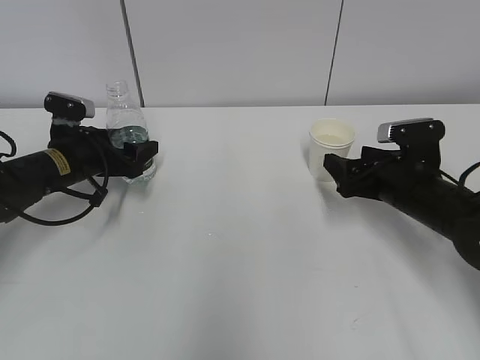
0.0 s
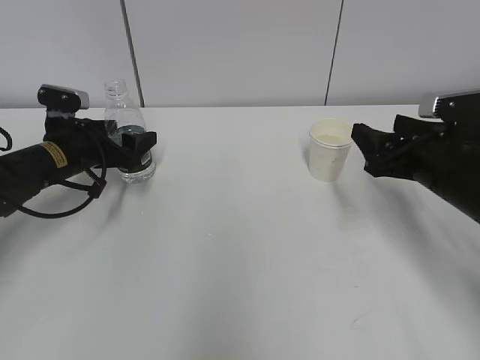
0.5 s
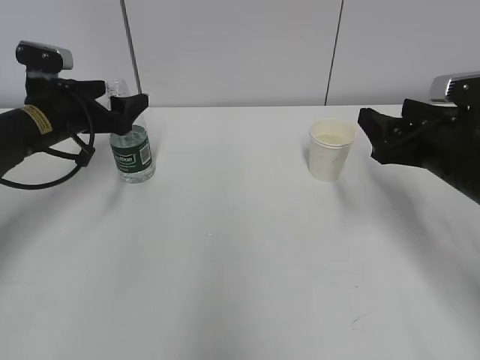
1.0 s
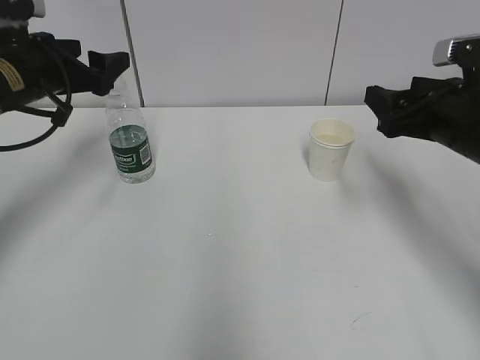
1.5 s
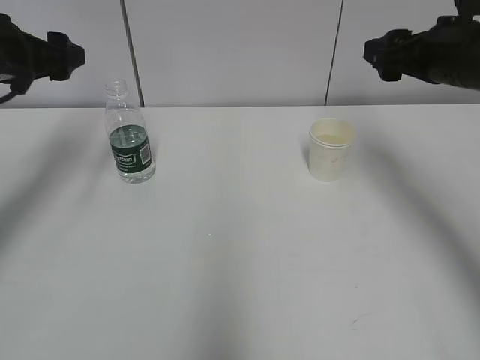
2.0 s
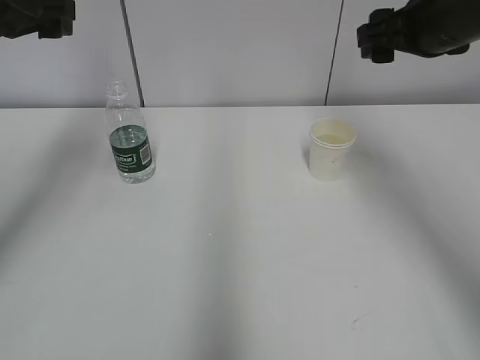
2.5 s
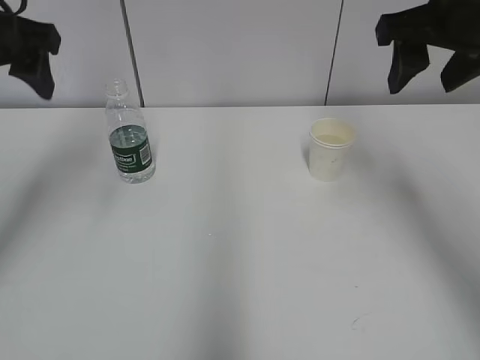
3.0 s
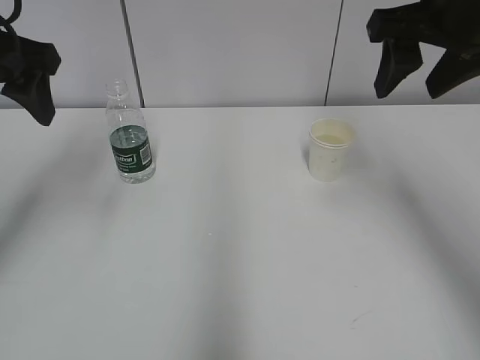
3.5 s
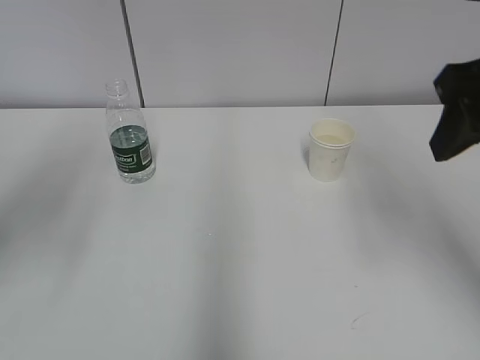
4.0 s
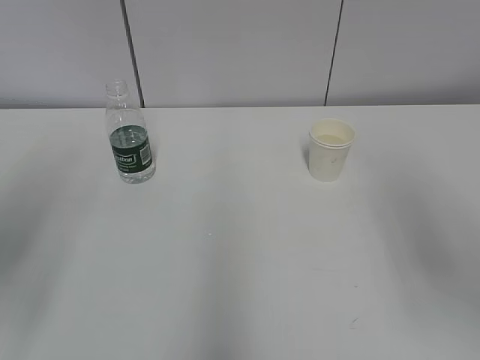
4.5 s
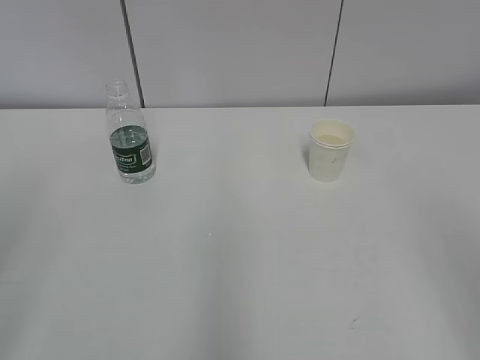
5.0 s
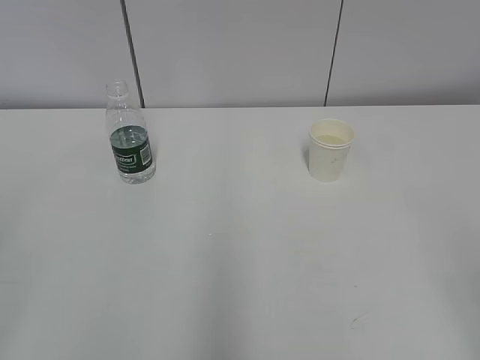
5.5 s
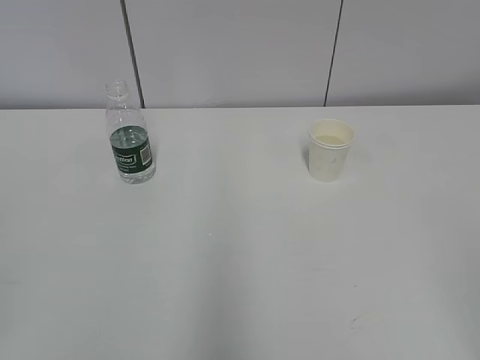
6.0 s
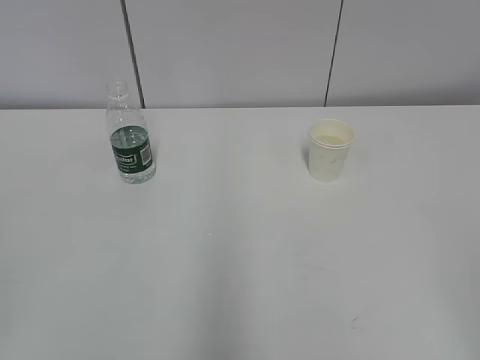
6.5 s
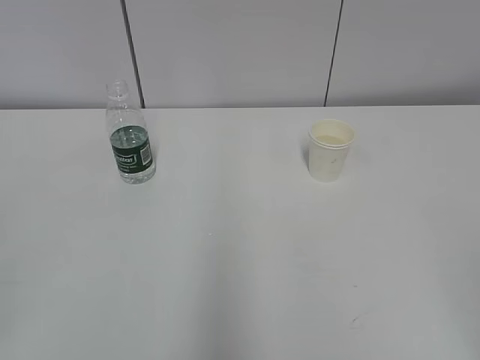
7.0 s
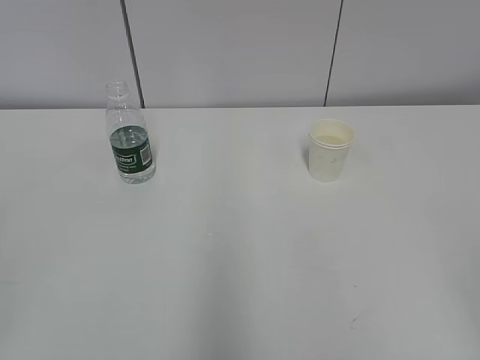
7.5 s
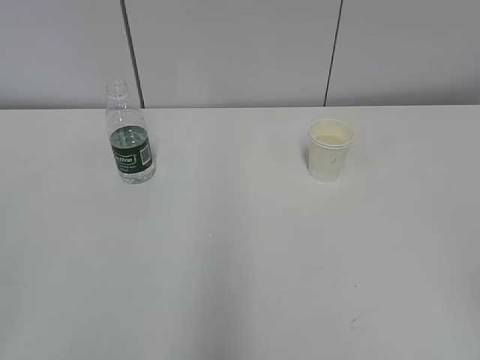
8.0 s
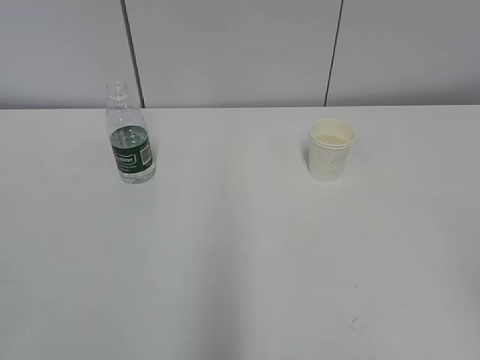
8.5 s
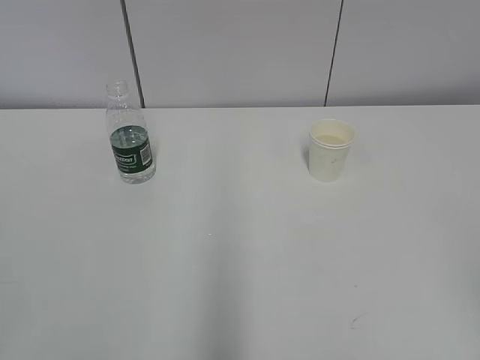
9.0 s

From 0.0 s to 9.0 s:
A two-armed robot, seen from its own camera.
From 0.0 s to 2.0 s: The grippers both shift upward by roughly 15 cm.
From 2.0 s to 4.5 s: The grippers both shift backward by some 20 cm. The right gripper closes.
From 4.5 s to 7.0 s: Both grippers travel together backward, roughly 15 cm. The left gripper closes up.

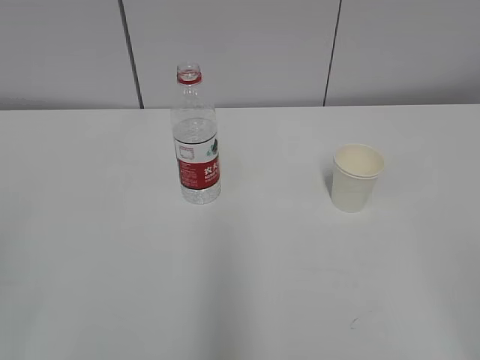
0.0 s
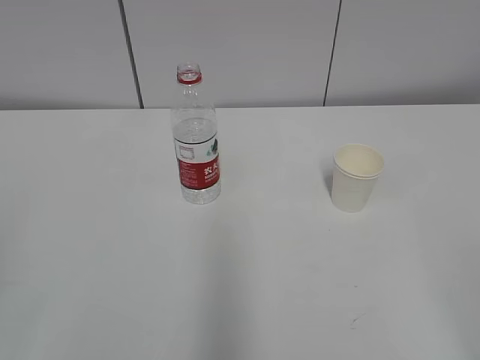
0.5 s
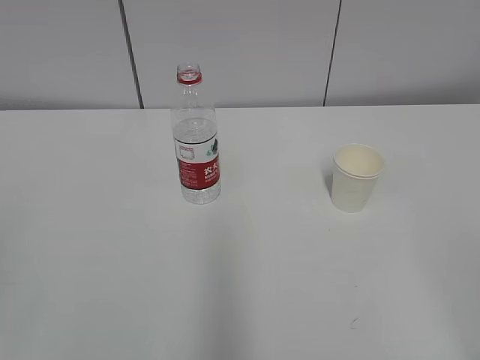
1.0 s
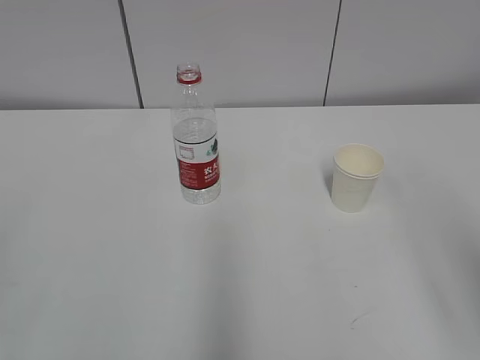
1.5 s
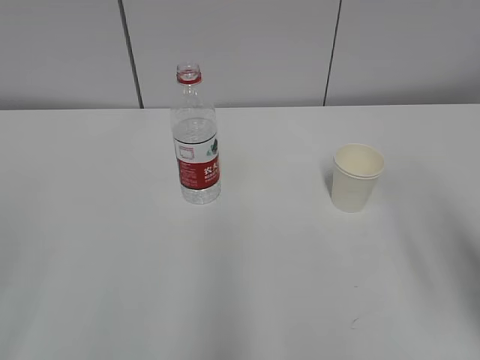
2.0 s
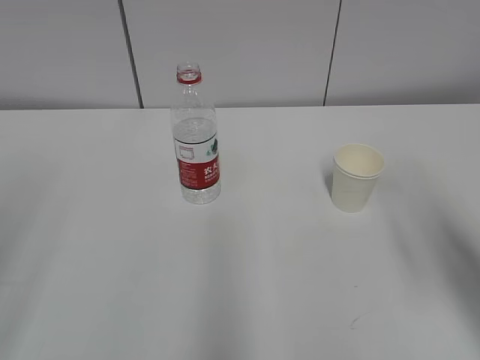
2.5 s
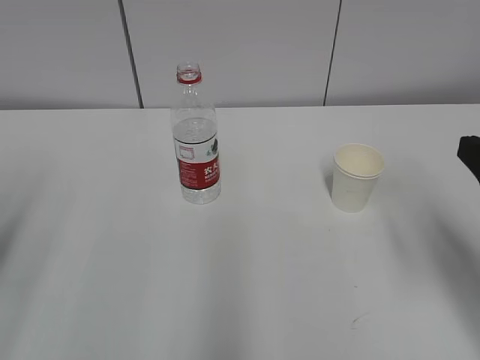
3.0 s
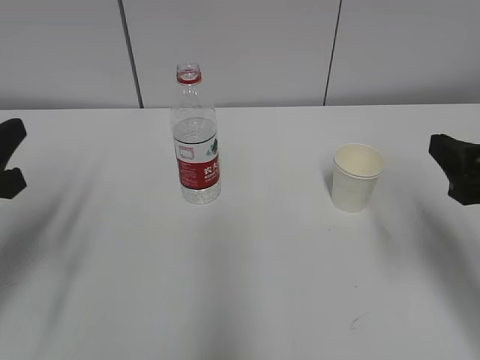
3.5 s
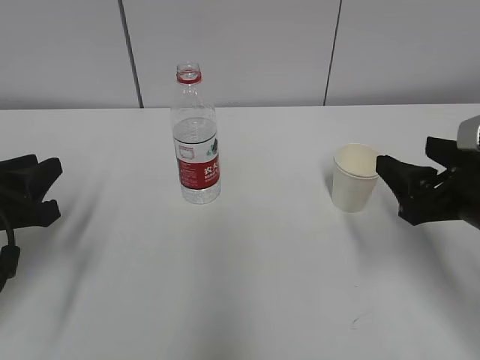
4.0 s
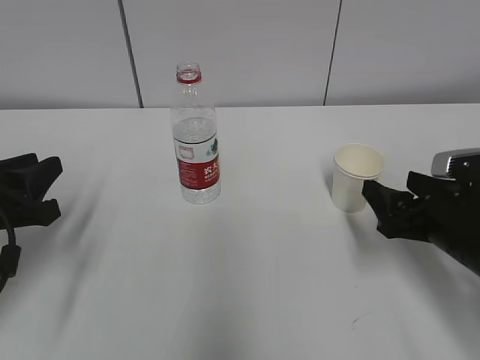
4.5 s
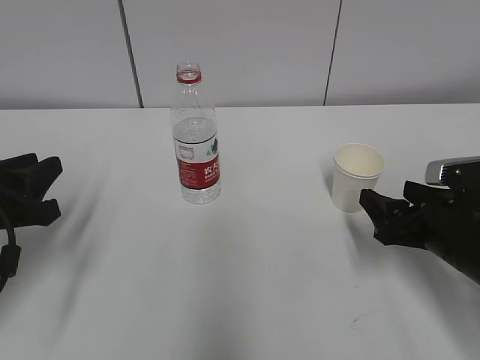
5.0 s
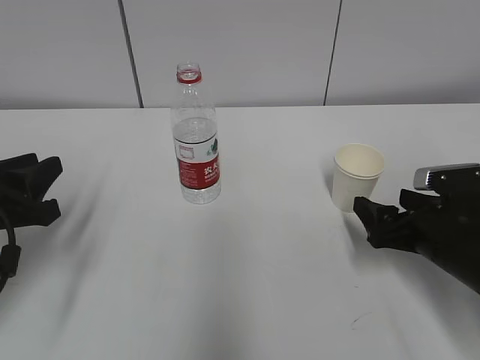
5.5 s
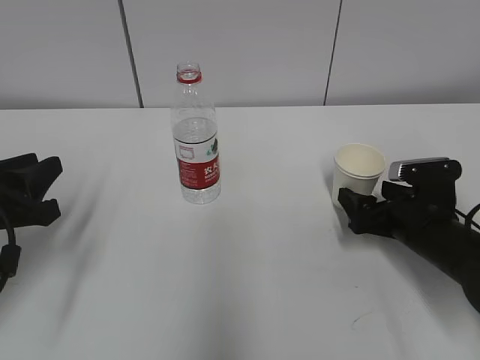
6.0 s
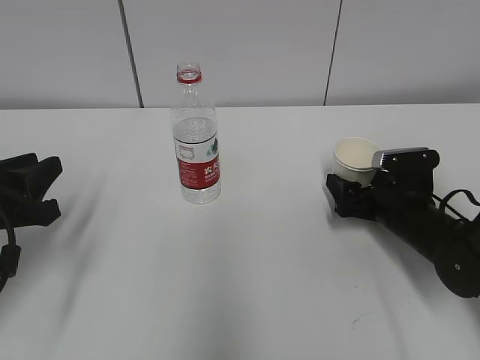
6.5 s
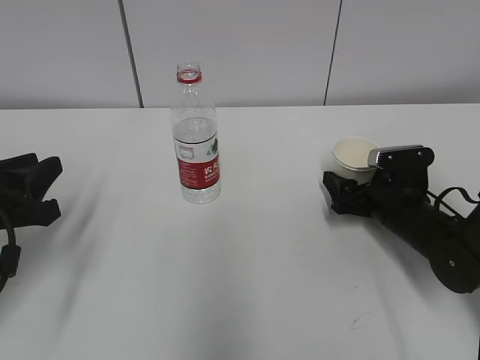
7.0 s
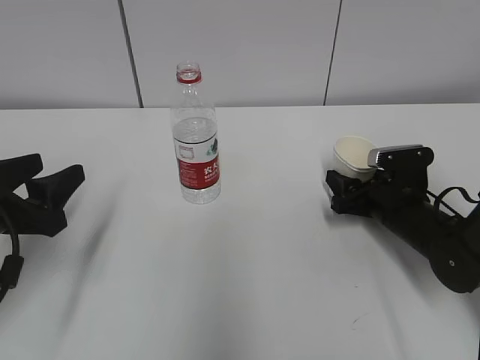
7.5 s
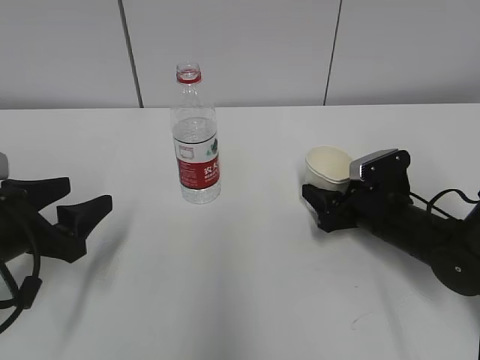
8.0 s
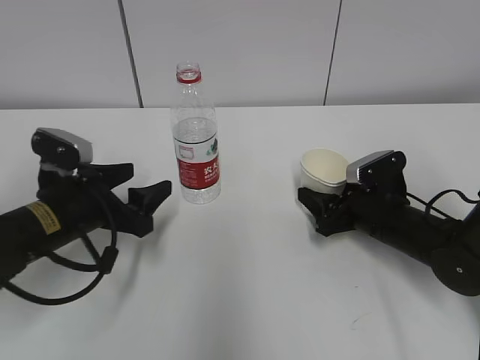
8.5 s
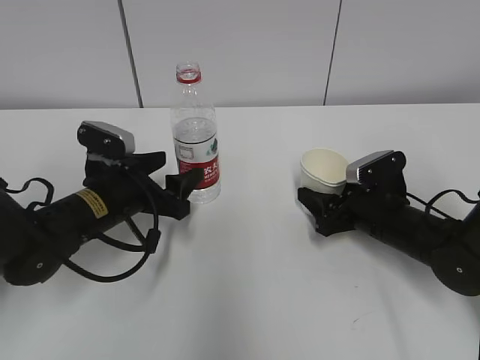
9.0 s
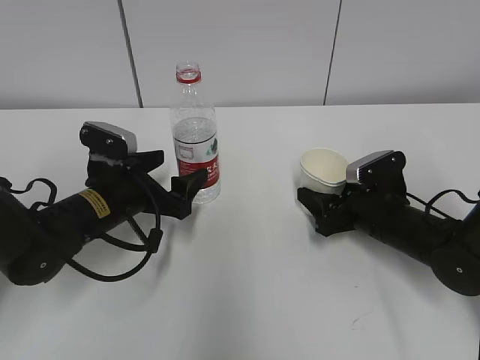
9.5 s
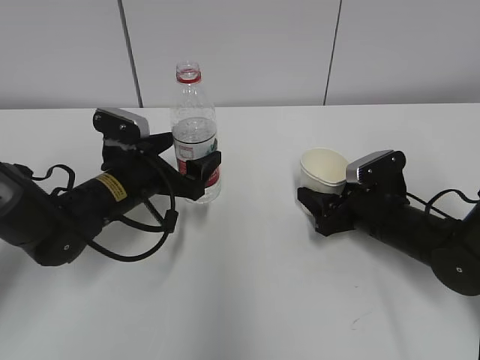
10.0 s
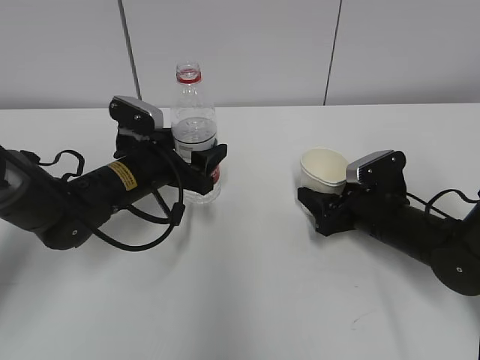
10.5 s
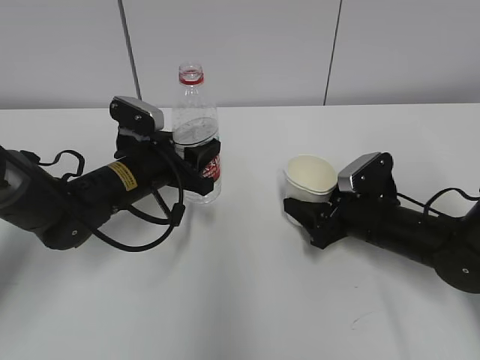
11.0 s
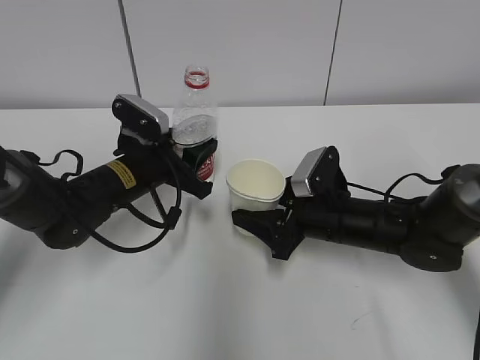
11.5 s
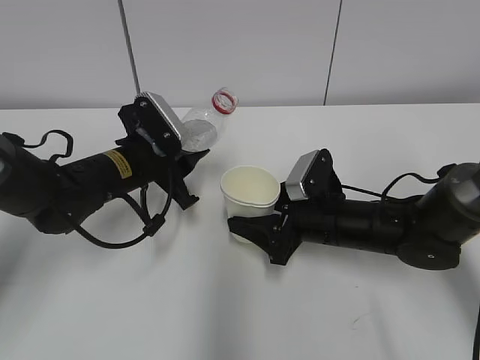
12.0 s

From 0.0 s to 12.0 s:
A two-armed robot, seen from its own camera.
Step, from 0.0 s to 9.0 s: Grab the paper cup with the right hand.
Step, from 10.0 s to 11.5 s: Lift the paper cup with the right hand.
From 2.0 s to 4.0 s: The left gripper moves forward and downward, approximately 30 cm. Meanwhile the right gripper is displaced forward and downward by about 15 cm.
From 4.0 s to 6.0 s: The right gripper shifts about 15 cm downward and forward, and opens.
From 6.0 s to 8.0 s: The right gripper closes. Meanwhile the left gripper opens up.
From 8.0 s to 10.0 s: The left gripper heads forward and to the right, covering approximately 15 cm.
From 10.0 s to 12.0 s: The left gripper closes up. Meanwhile the right gripper goes roughly 10 cm to the left.

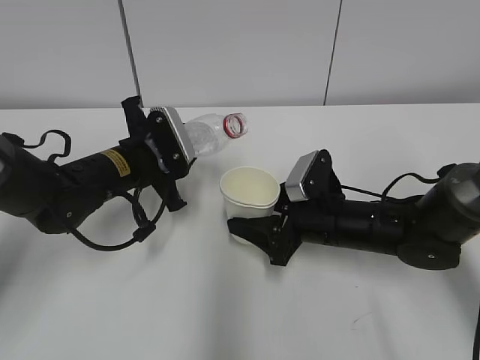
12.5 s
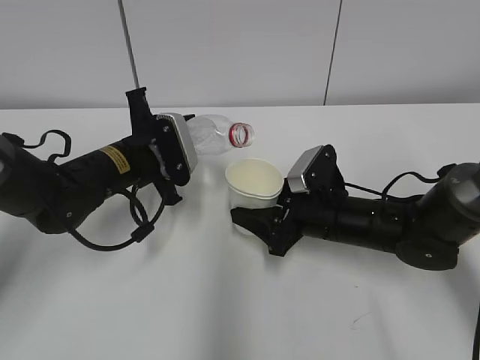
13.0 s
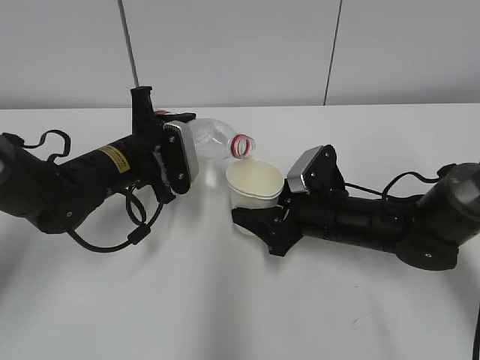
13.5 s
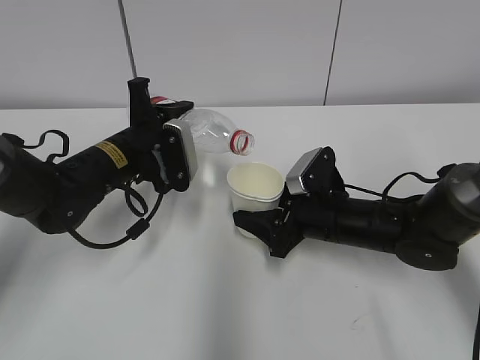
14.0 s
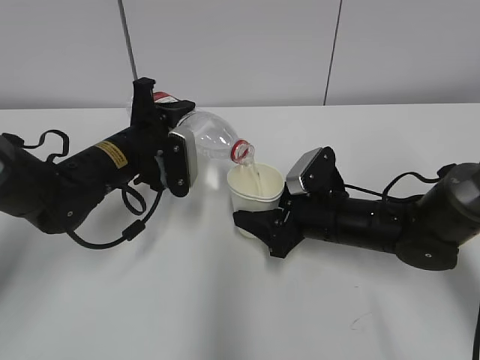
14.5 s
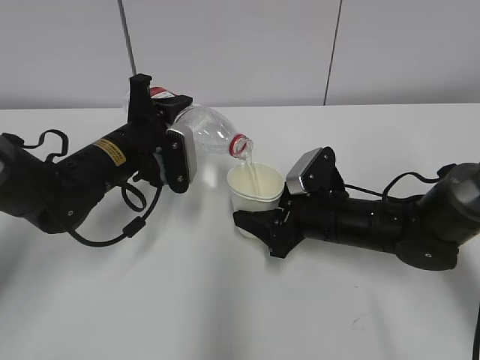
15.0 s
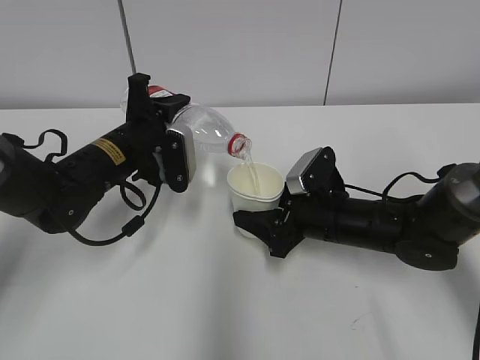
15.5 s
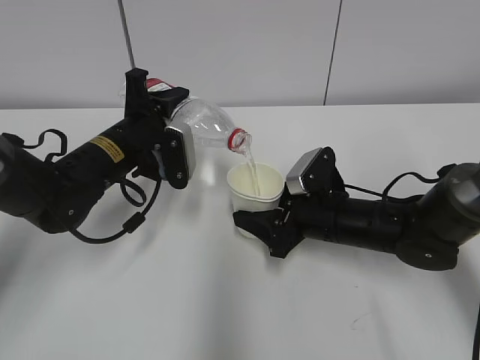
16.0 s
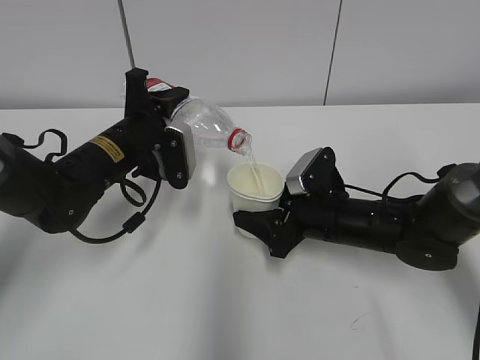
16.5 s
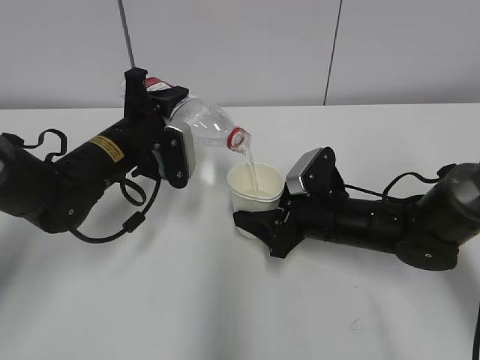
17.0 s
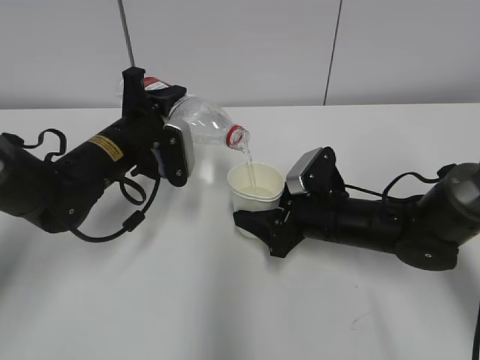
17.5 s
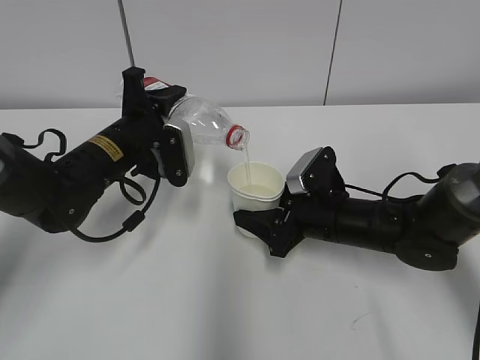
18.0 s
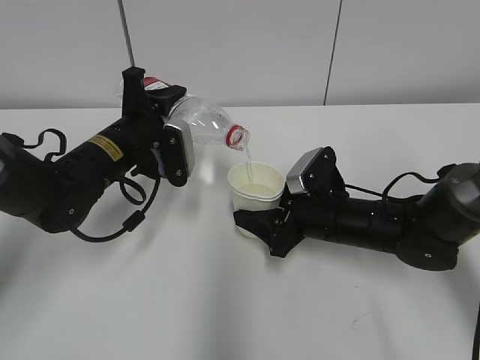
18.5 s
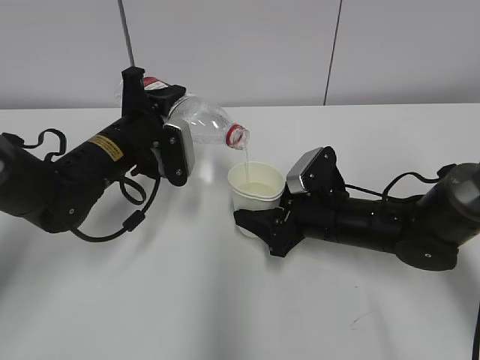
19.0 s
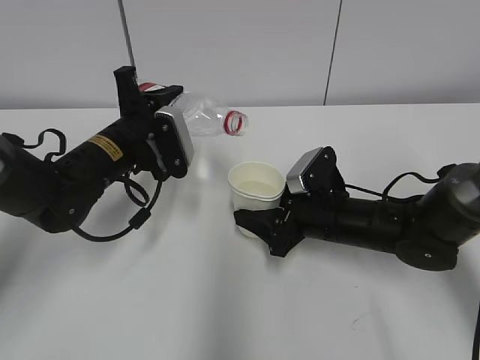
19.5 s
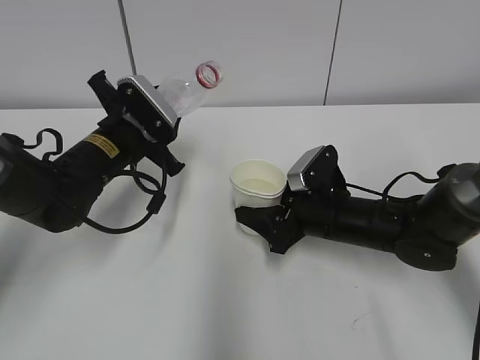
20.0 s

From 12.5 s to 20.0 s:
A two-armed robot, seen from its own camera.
Step, from 12.5 s to 16.0 s: Fill water with the right hand.
Step, from 12.5 s to 16.0 s: Pour water with the left hand.
Step, from 17.5 s to 19.5 s: Place the paper cup with the right hand.
From 14.5 s to 16.5 s: The grippers make only small movements.
From 16.5 s to 18.0 s: Both grippers stay put.
